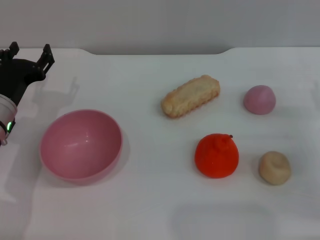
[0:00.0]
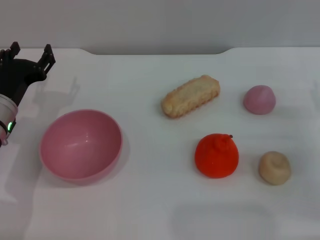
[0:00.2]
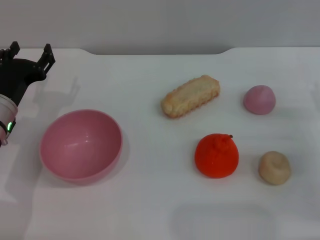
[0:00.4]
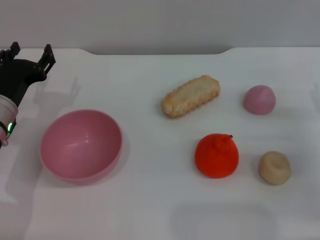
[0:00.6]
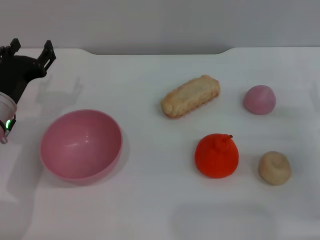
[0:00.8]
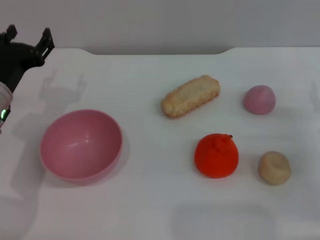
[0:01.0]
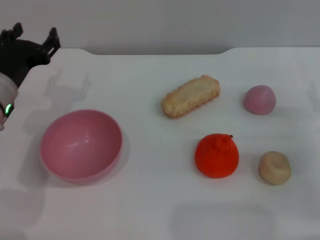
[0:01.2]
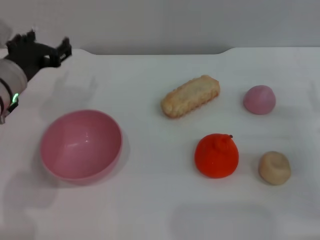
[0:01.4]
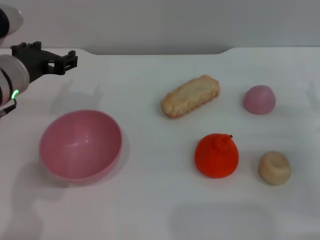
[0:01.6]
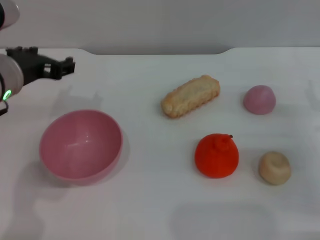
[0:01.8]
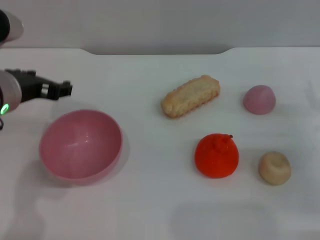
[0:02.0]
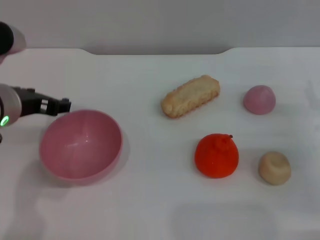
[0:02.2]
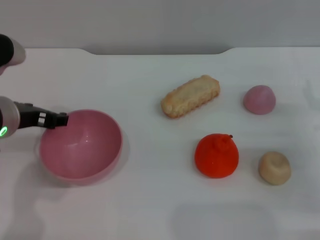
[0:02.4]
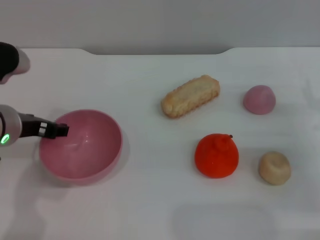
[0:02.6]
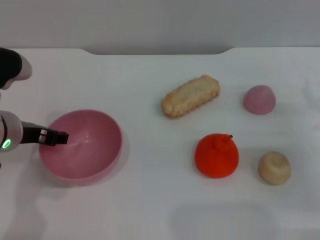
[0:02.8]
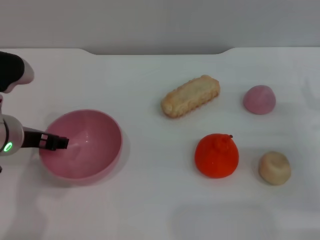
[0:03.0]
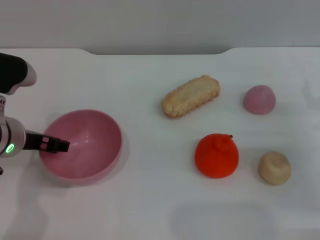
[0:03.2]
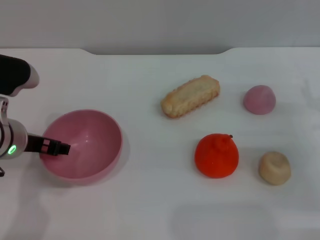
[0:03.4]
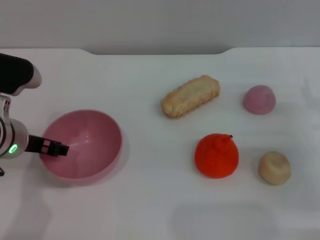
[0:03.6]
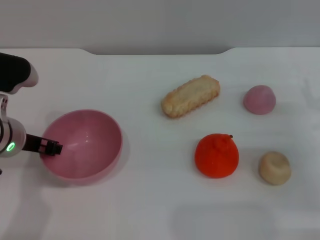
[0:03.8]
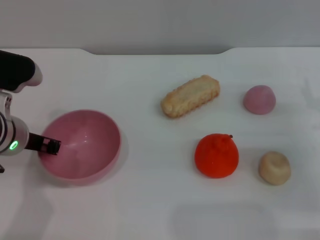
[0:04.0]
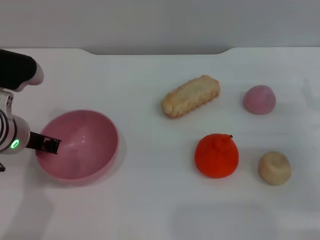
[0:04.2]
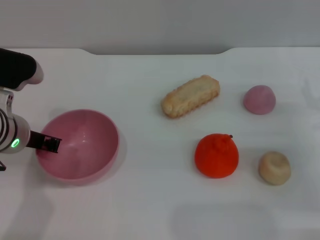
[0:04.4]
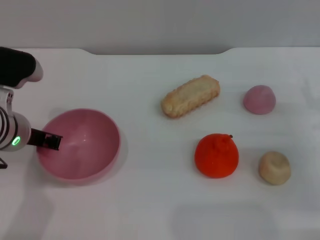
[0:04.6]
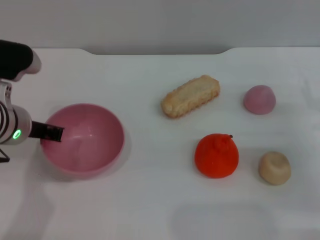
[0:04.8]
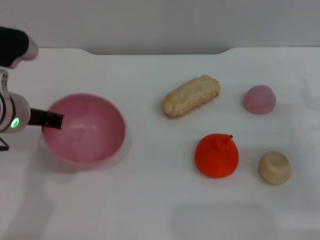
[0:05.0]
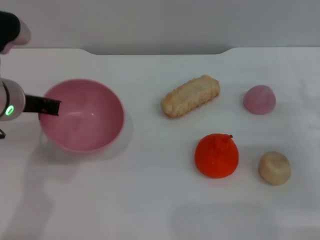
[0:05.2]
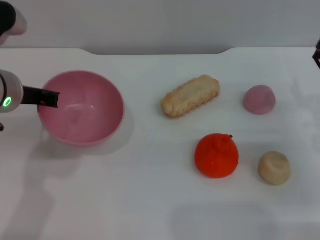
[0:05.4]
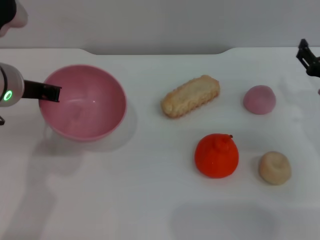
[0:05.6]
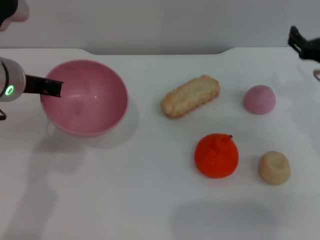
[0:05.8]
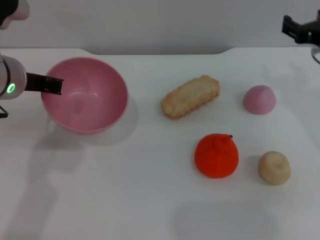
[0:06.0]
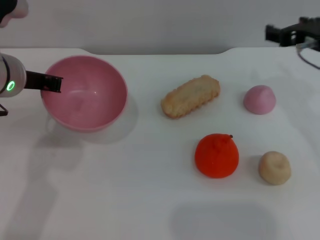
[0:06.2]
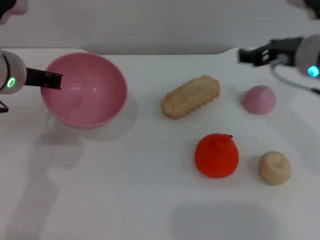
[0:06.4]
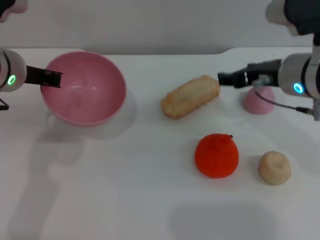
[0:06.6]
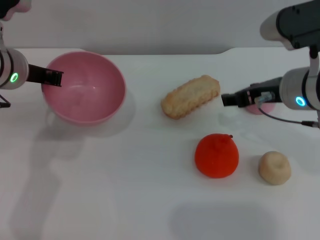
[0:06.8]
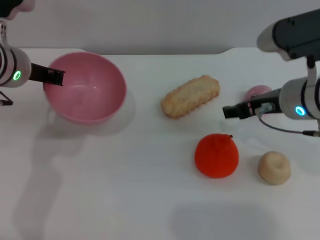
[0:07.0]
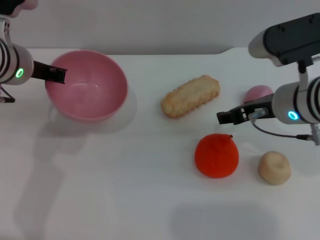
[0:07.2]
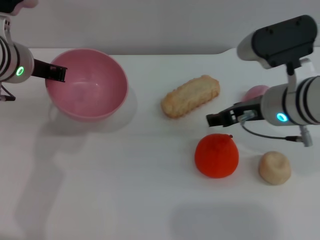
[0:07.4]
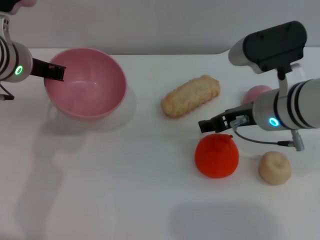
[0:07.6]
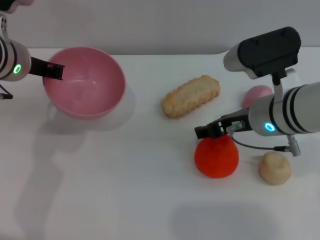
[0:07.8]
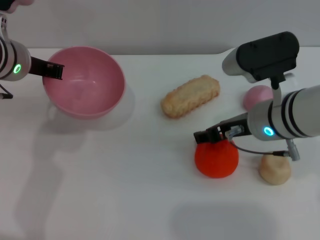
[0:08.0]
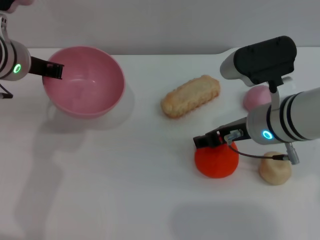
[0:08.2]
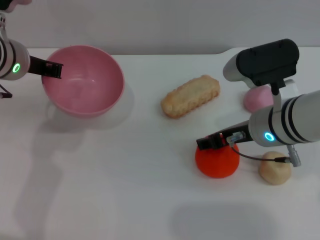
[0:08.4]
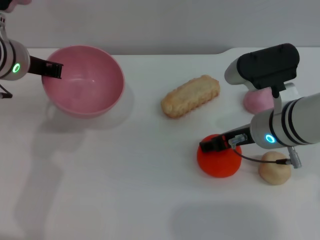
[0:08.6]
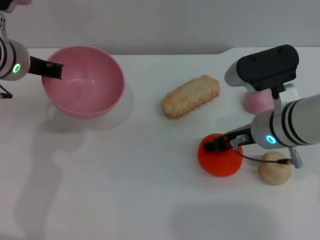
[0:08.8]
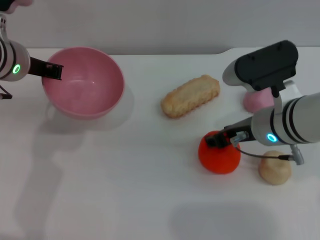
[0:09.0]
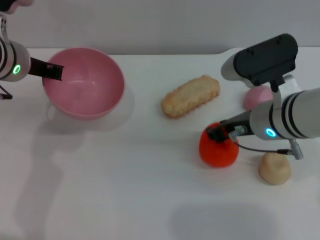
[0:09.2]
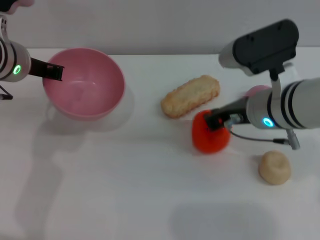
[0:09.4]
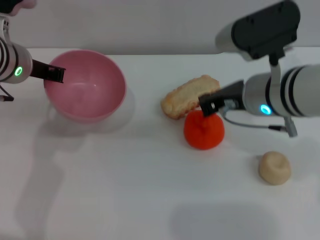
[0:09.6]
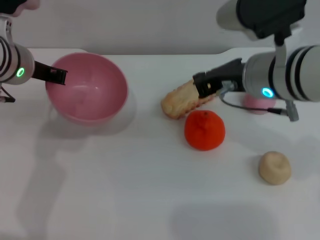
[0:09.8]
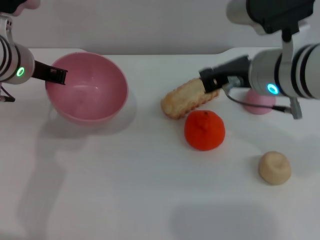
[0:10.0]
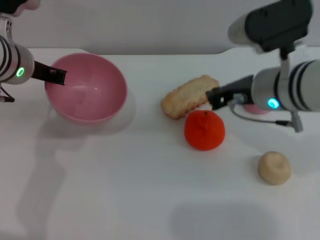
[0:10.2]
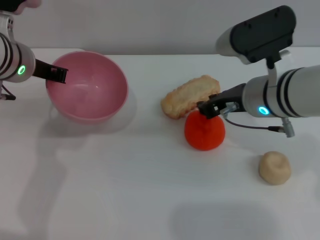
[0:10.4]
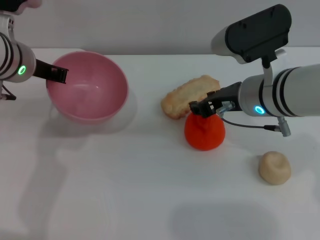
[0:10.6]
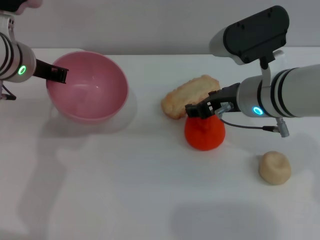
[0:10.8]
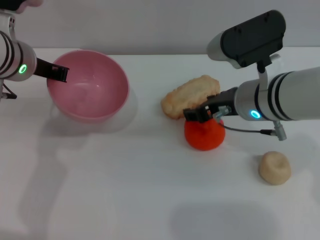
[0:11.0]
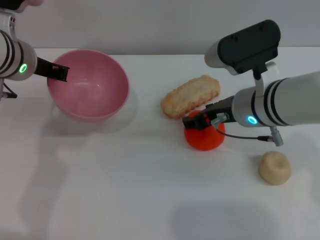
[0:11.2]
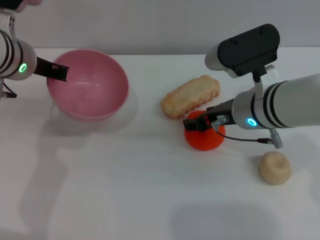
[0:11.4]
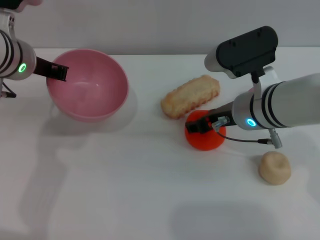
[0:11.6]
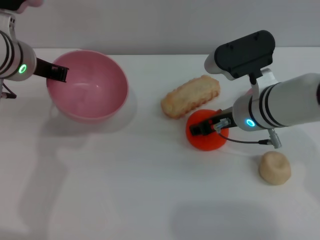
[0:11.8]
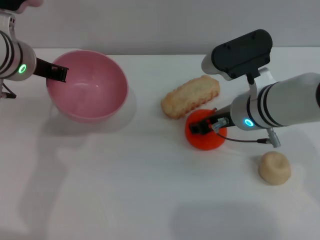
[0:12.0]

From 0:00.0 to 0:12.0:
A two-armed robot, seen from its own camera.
Task of the whole recording: put the orange into the pink bowl and pour it out repeatedly.
Step, from 0:00.0 to 0:05.0: Pick up the bowl with the left gripper.
From 0:00.0 to 0:01.6: The left gripper heads upward, covering some 10 cm.
From 0:03.0 to 0:04.4: The left gripper closes up.
From 0:04.4 to 0:06.0: The left gripper shifts about 5 cm upward, while the right gripper moves upward, to the left and forward, roughly 15 cm.
From 0:06.0 to 0:07.6: The right gripper travels to the left by some 10 cm.
From 0:07.6 to 0:09.0: The grippers stay close to where they were, moving slightly.
From 0:09.0 to 0:10.4: The right gripper closes.
From 0:10.4 to 0:12.0: The right gripper opens up.

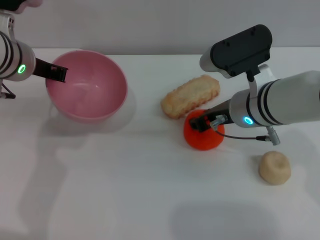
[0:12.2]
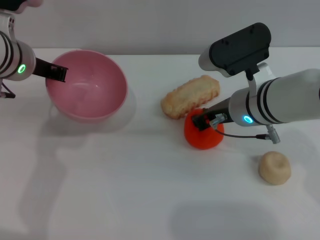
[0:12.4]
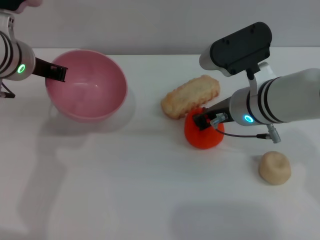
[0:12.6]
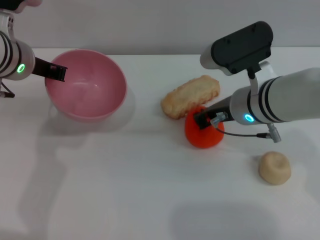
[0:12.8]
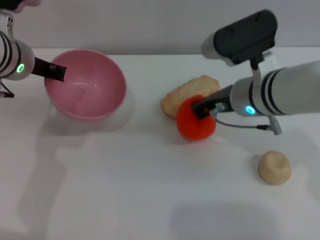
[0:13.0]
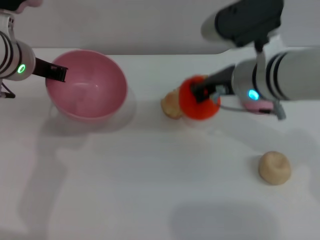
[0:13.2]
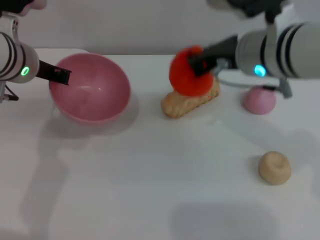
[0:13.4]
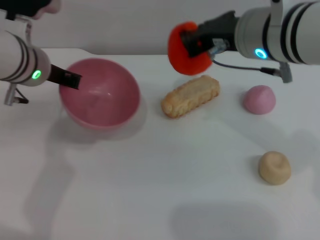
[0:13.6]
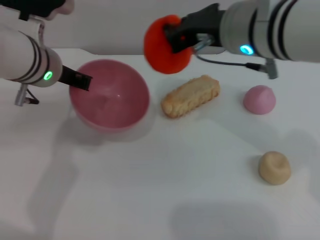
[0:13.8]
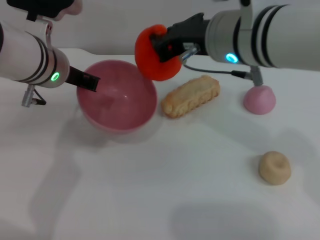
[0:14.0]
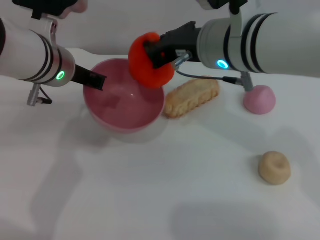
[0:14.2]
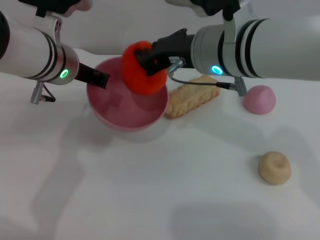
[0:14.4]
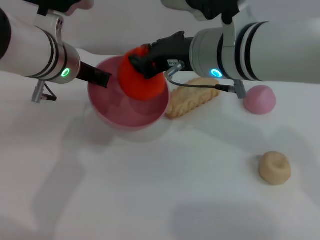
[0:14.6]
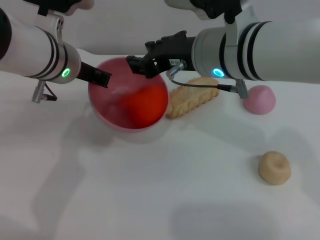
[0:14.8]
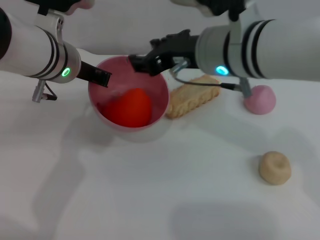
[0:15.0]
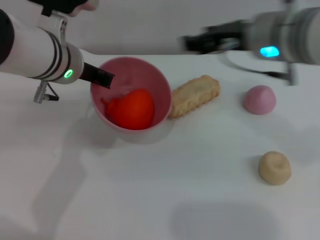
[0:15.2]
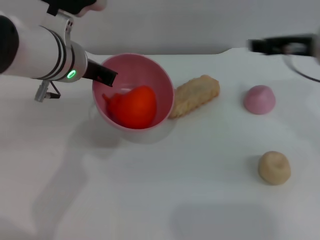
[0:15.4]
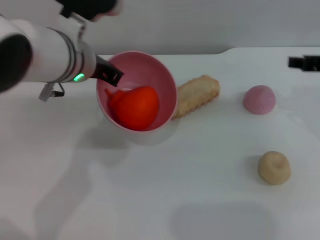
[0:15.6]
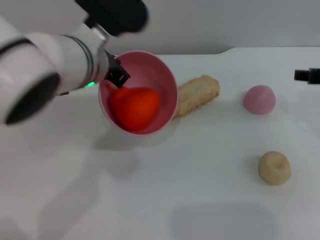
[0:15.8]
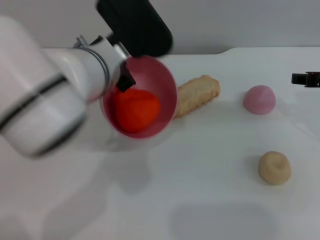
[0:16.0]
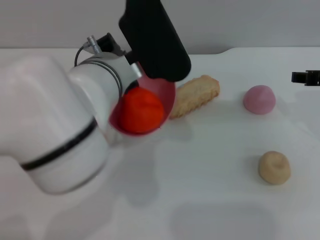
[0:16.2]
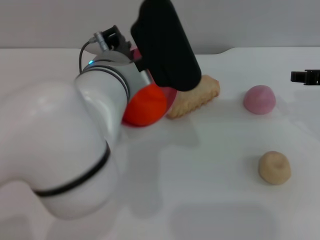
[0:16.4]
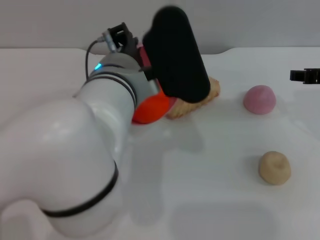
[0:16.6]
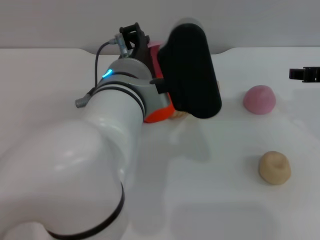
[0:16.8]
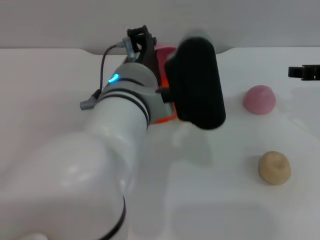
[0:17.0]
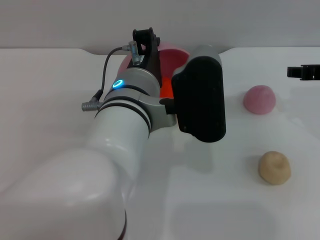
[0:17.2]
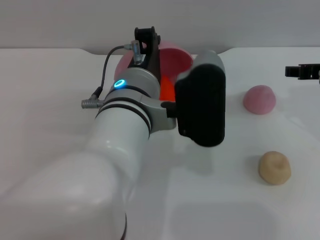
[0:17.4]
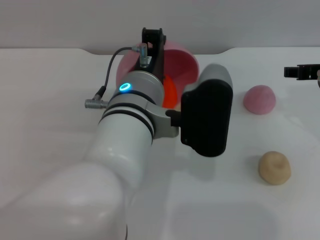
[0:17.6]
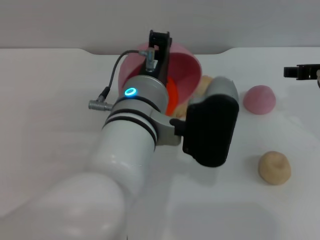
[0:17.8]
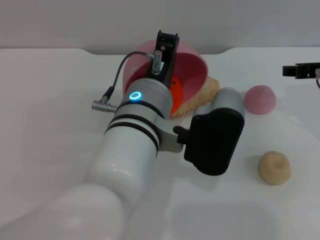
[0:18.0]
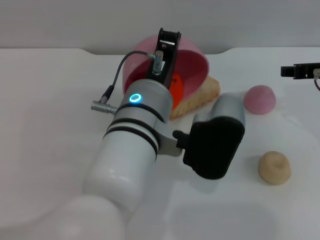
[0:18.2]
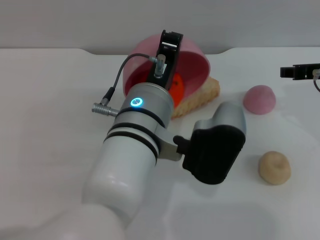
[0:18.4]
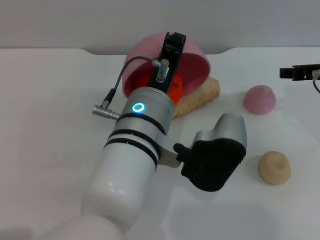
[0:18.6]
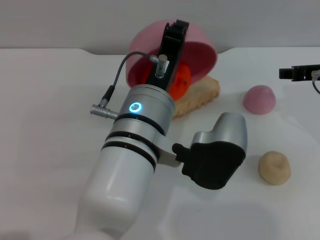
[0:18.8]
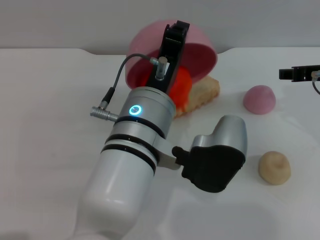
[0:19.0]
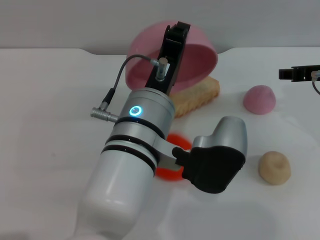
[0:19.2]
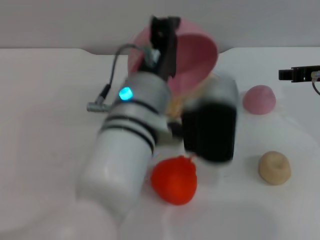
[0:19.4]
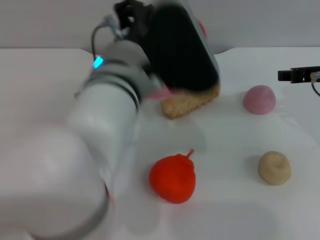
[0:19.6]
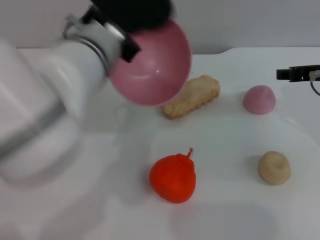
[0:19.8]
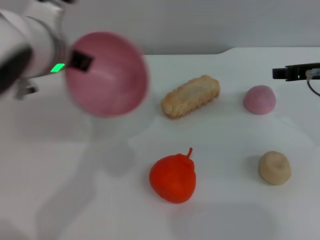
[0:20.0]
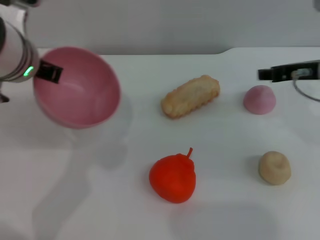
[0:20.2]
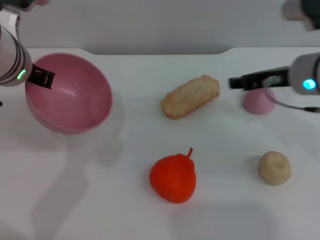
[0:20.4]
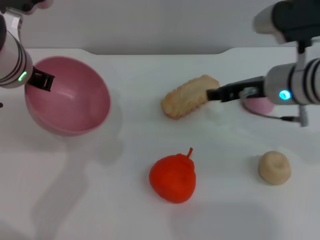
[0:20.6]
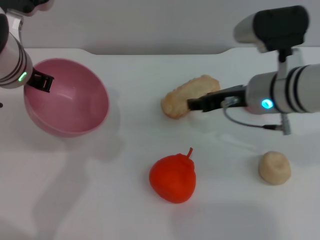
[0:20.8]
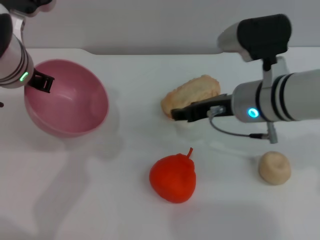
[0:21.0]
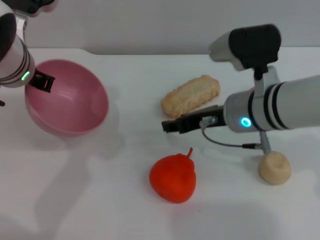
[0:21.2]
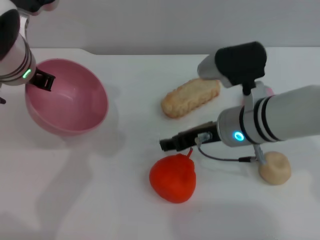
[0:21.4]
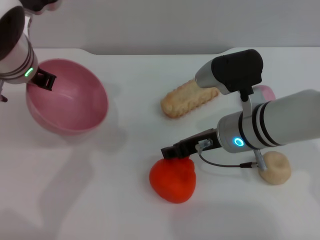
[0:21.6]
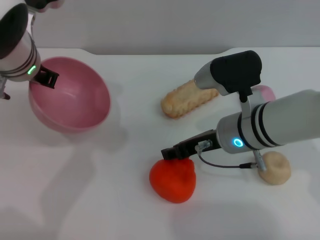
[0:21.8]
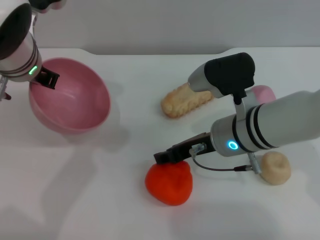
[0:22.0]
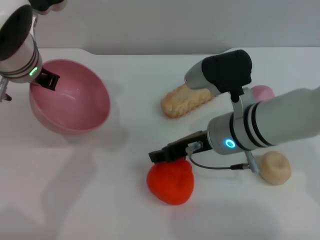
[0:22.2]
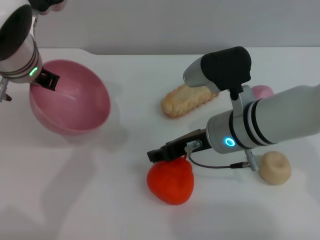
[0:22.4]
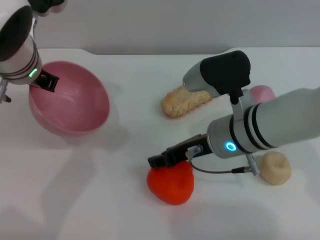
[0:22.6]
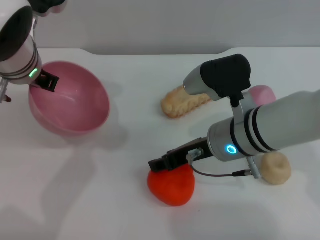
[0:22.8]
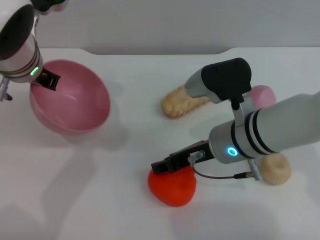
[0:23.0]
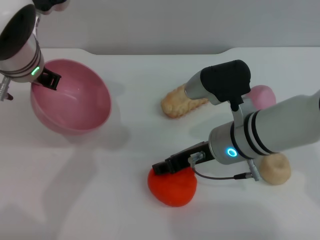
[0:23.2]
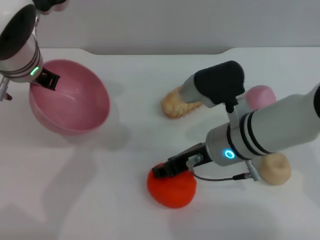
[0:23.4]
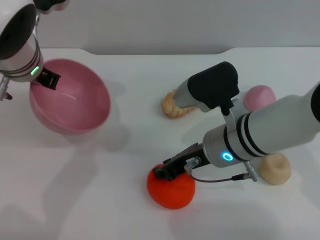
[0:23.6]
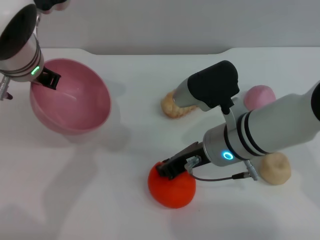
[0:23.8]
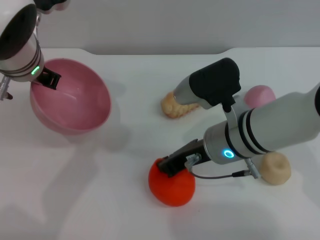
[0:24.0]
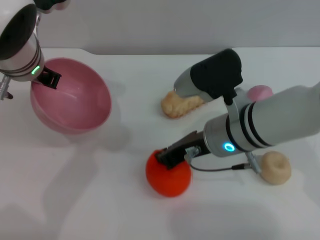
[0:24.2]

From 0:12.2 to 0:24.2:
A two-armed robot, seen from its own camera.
Task of the whole recording: put the orange into the pink bowl and pour it out repeatedly.
Step, from 0:13.4 to 0:15.0: Place the orange into the bowl.
Step, from 0:15.2 to 0:19.6: Pour the orange out of the bowl.
From 0:12.2 to 0:13.8: The right gripper is displaced upward by approximately 10 cm, and closes its fingers.
From 0:13.8 to 0:15.2: The right gripper moves approximately 5 cm, and opens.
From 0:15.2 to 0:16.6: The left gripper goes roughly 10 cm to the right and backward. The right gripper shifts about 15 cm to the right.
From 0:16.6 to 0:18.2: The left gripper moves some 5 cm.
From 0:18.2 to 0:19.8: The left gripper moves upward, about 5 cm.
From 0:19.8 to 0:21.2: Both grippers move to the left, some 10 cm.
From 0:21.2 to 0:22.6: The grippers make only small movements.
From 0:22.6 to 0:24.2: The right gripper closes.
